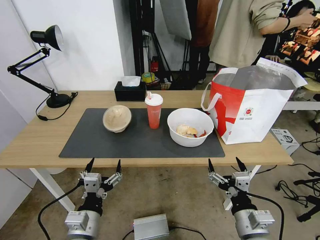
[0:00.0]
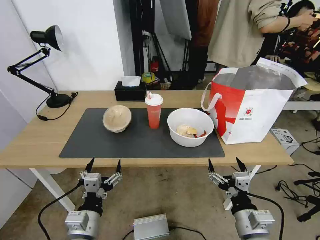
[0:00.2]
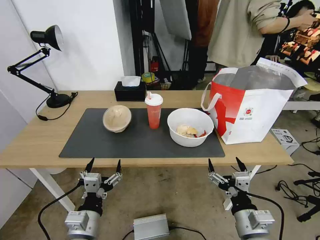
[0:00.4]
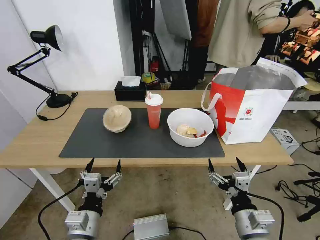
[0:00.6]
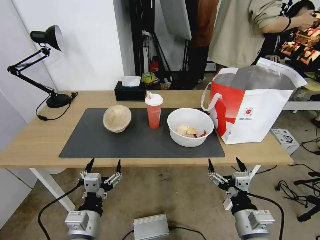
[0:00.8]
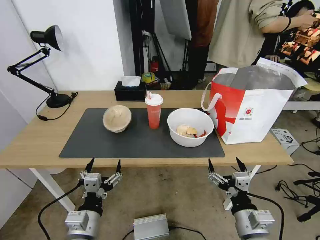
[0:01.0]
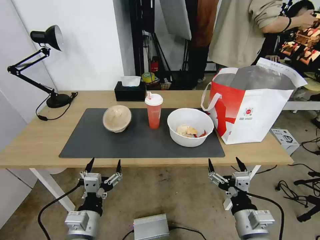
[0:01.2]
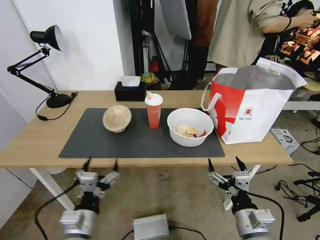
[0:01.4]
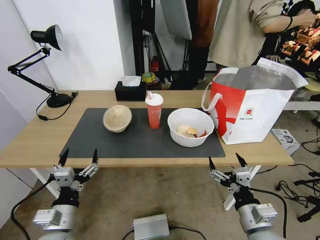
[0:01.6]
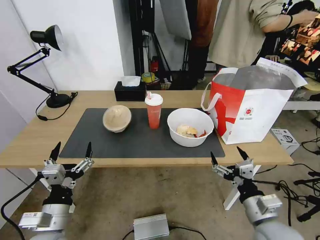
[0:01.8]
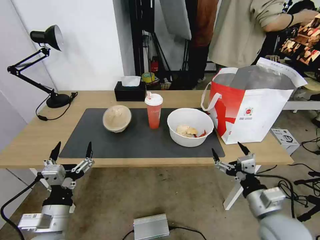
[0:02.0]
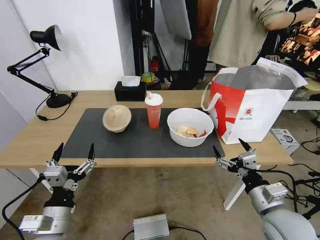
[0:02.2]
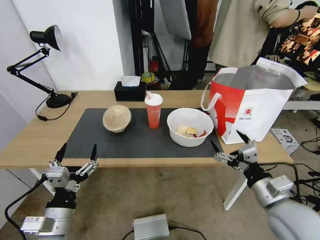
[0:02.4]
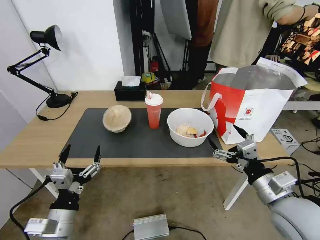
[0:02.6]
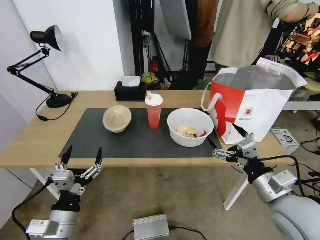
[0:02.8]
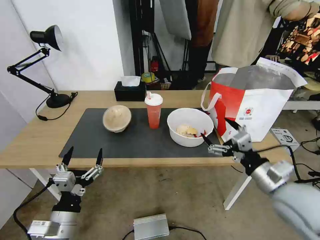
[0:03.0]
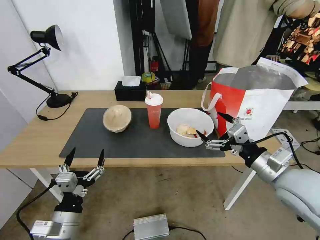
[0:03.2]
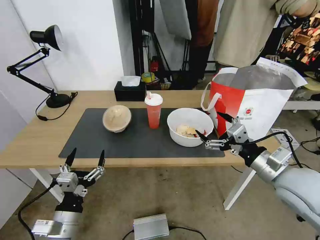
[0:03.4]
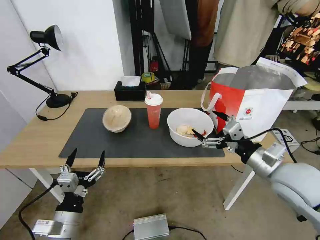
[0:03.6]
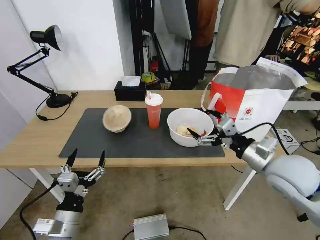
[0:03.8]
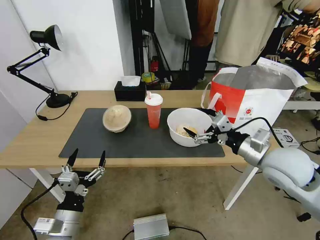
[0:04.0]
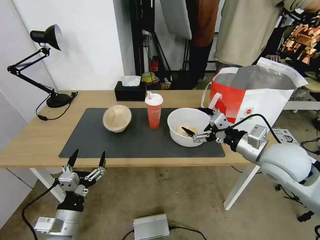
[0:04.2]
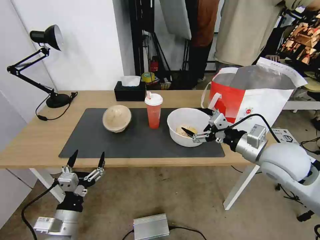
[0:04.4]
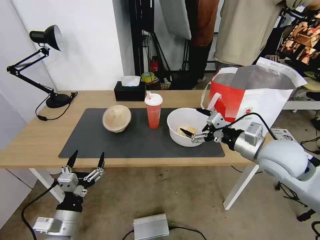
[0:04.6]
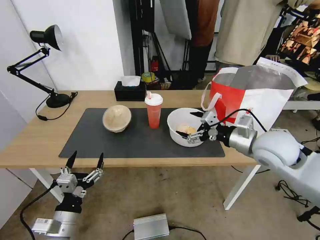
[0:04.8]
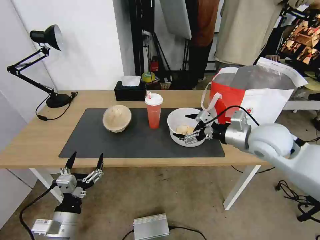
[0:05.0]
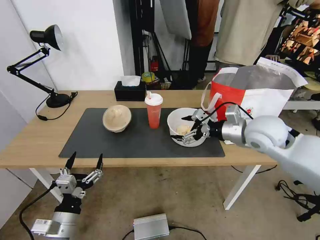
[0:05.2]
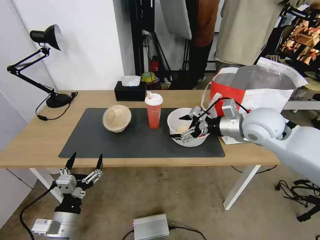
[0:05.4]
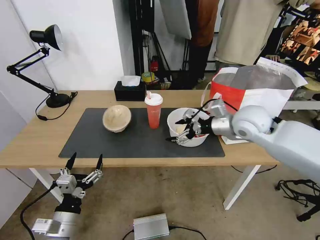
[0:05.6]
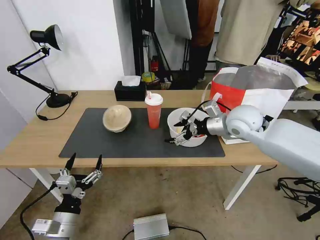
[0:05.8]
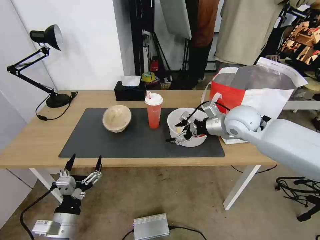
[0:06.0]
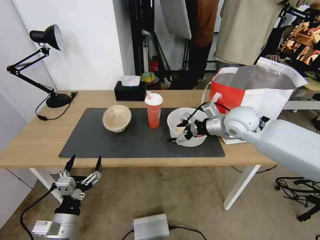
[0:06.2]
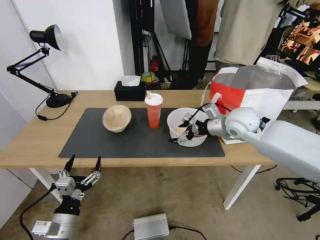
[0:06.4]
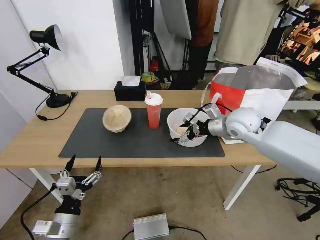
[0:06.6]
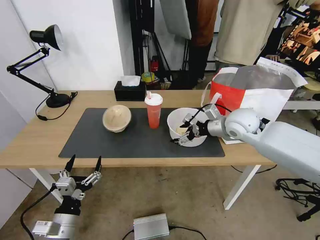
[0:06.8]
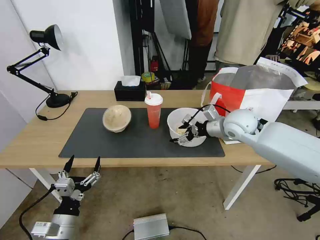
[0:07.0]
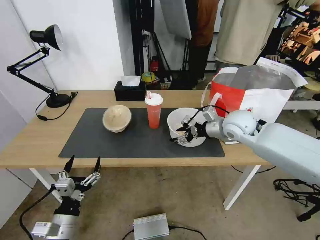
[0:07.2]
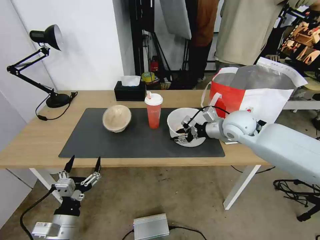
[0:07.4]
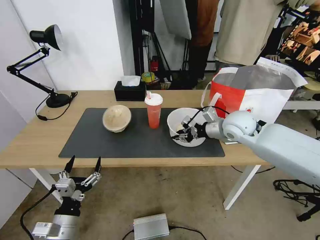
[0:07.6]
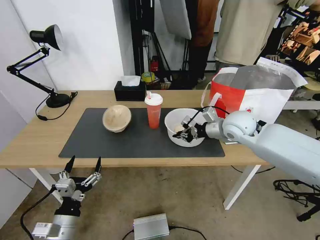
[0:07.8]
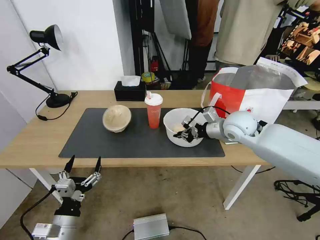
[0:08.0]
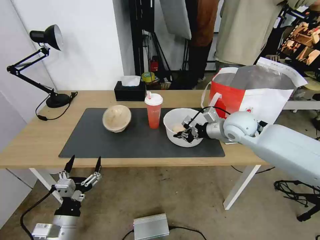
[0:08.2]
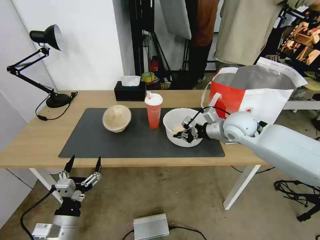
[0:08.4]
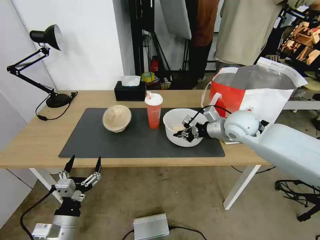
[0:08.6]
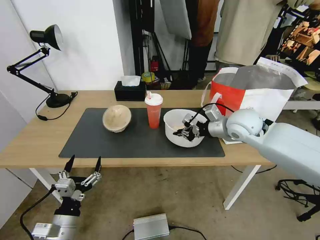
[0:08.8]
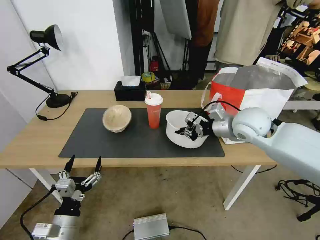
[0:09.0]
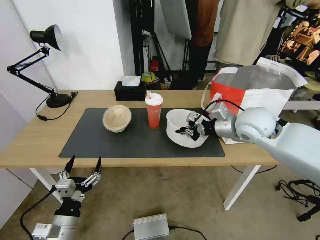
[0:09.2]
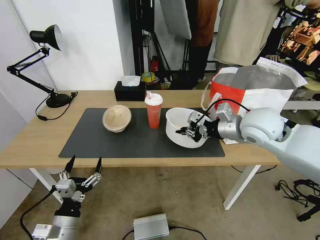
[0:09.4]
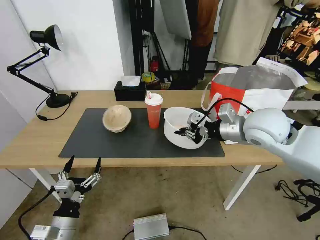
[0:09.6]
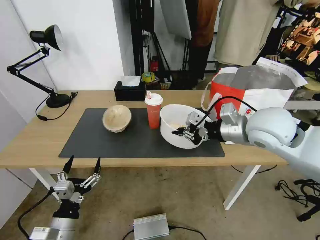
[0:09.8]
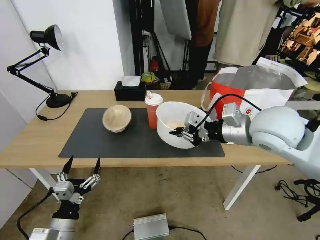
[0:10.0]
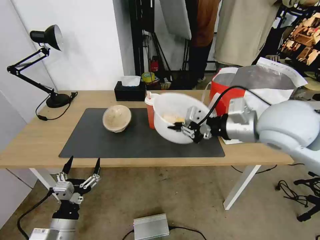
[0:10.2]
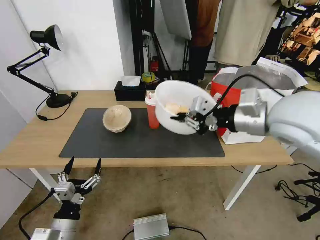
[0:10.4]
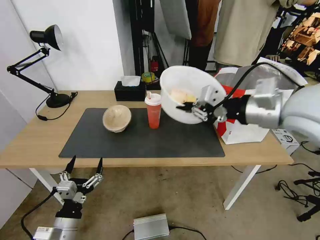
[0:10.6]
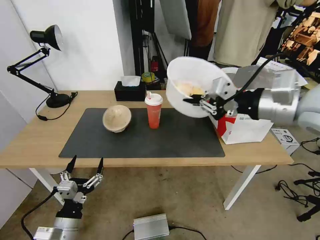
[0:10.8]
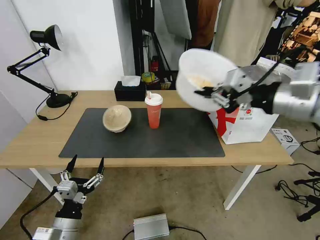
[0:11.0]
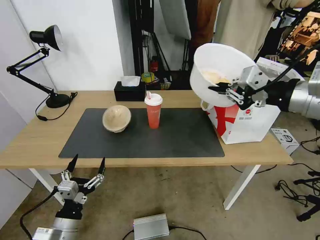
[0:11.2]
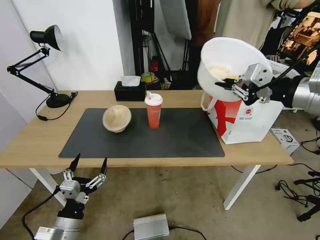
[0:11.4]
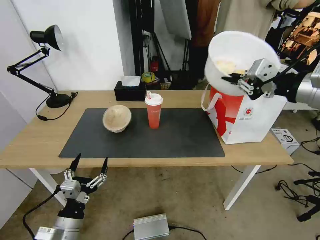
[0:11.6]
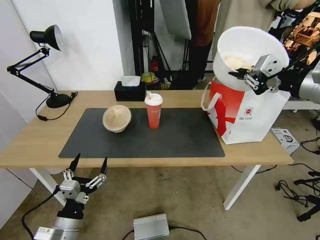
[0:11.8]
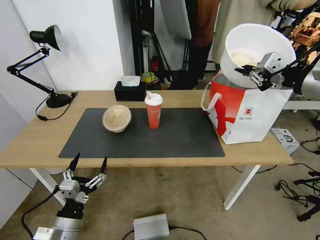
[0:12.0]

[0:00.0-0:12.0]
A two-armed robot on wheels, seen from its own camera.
Task of the whole recording: Pick up the trash from the table and place it into the takeout bag.
0:01.6 to 0:03.0: The right gripper heads upward, forward and to the right, covering approximately 15 cm.
0:03.0 to 0:04.4: The right gripper shifts roughly 10 cm forward.
0:04.4 to 0:06.0: The right gripper heads forward, covering roughly 15 cm.
0:06.0 to 0:07.6: The right gripper closes its fingers.
0:07.6 to 0:09.0: The right gripper moves approximately 5 cm.
0:09.0 to 0:10.4: The right gripper heads upward and backward, covering some 15 cm.
0:10.4 to 0:12.0: The right gripper travels to the right by some 15 cm.

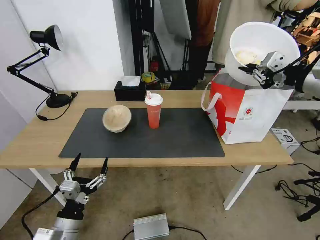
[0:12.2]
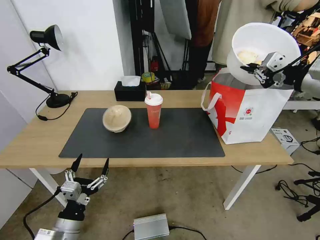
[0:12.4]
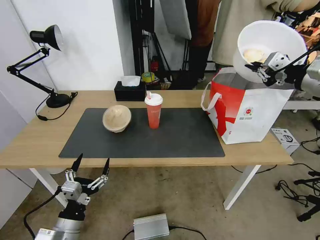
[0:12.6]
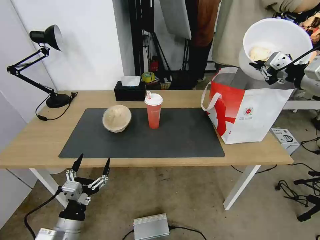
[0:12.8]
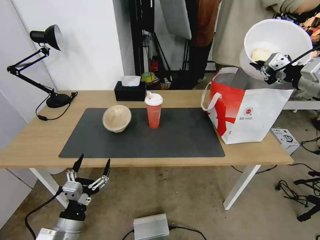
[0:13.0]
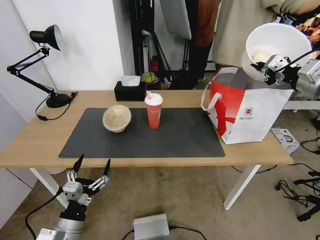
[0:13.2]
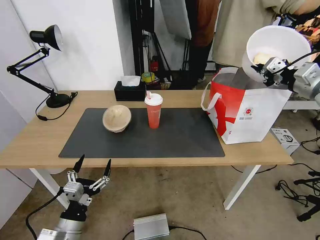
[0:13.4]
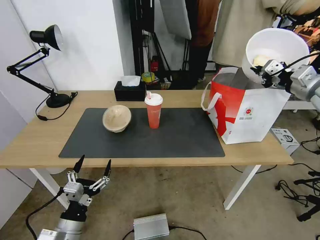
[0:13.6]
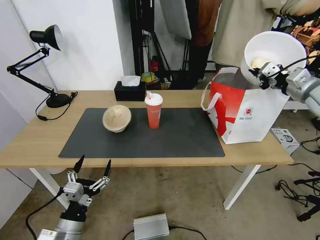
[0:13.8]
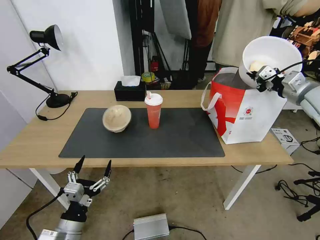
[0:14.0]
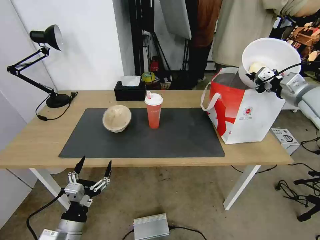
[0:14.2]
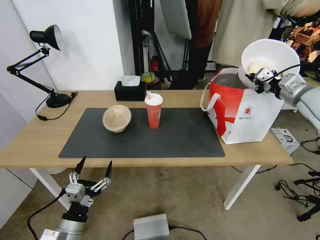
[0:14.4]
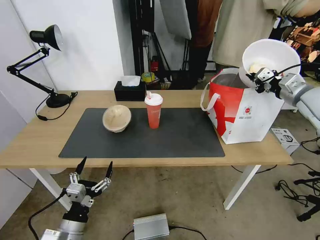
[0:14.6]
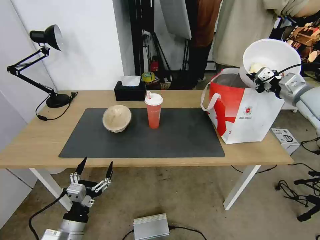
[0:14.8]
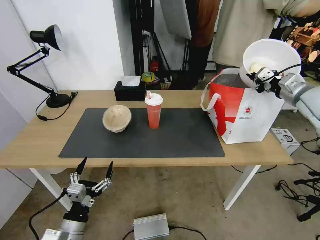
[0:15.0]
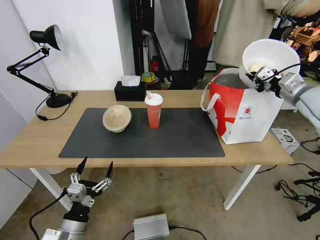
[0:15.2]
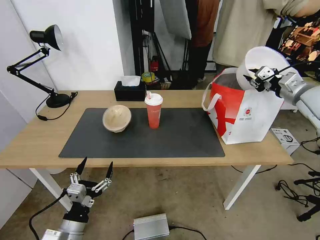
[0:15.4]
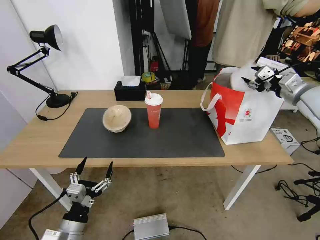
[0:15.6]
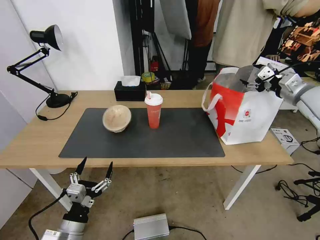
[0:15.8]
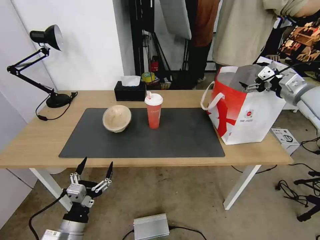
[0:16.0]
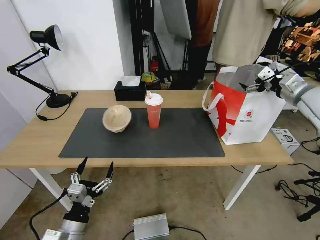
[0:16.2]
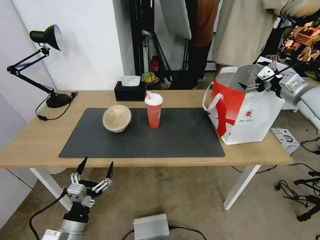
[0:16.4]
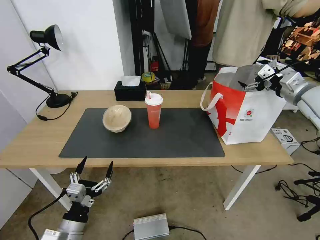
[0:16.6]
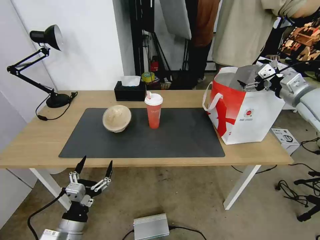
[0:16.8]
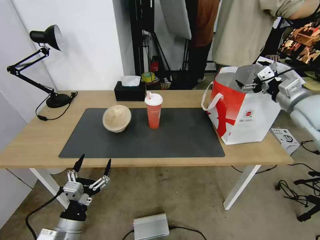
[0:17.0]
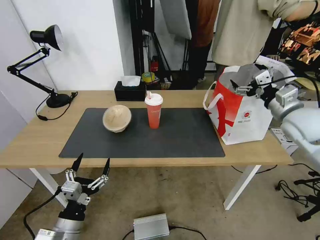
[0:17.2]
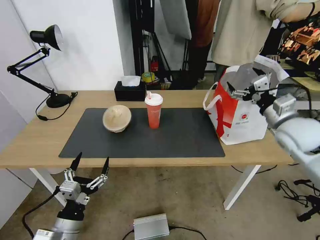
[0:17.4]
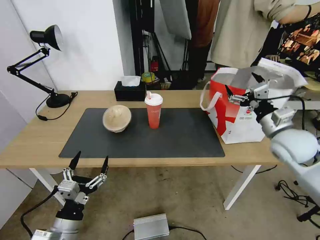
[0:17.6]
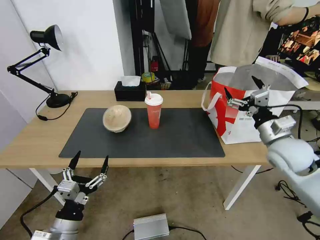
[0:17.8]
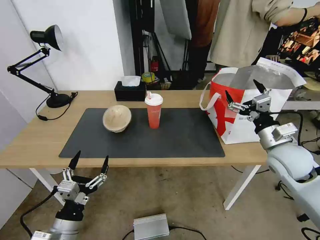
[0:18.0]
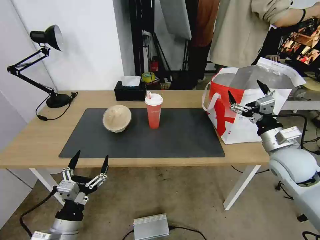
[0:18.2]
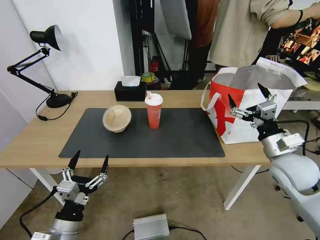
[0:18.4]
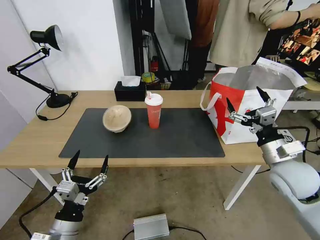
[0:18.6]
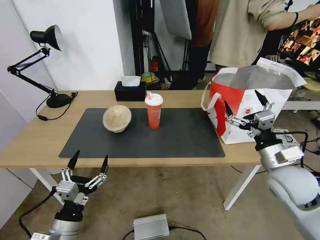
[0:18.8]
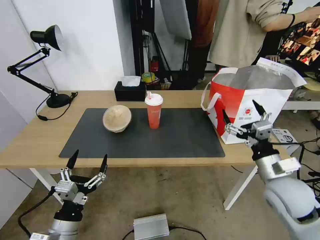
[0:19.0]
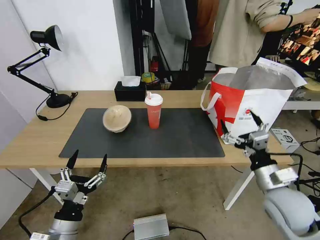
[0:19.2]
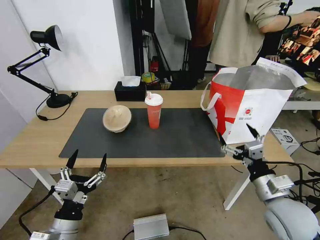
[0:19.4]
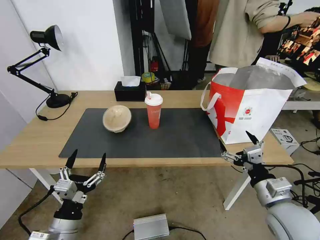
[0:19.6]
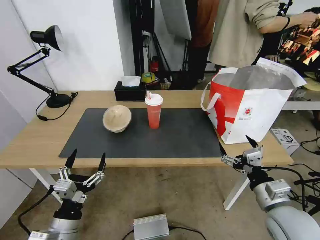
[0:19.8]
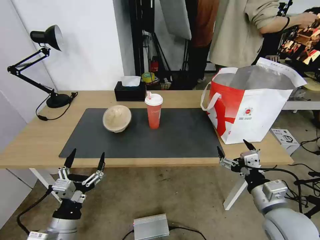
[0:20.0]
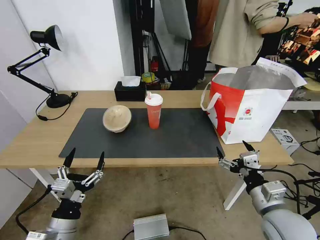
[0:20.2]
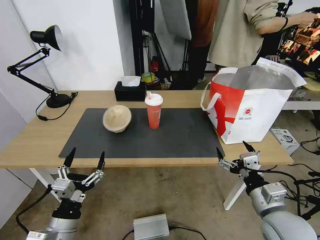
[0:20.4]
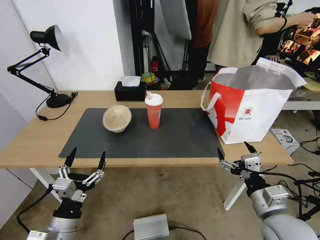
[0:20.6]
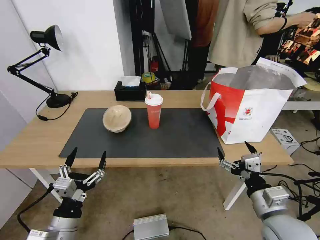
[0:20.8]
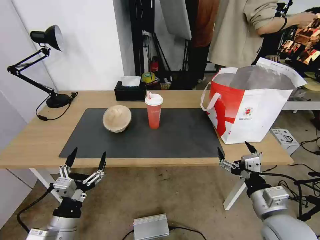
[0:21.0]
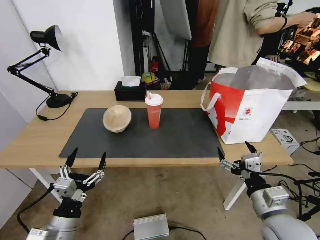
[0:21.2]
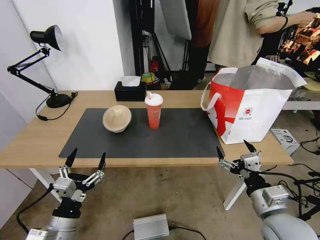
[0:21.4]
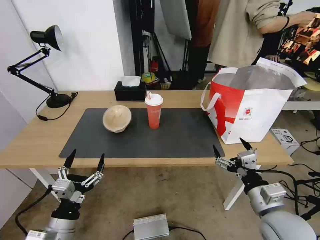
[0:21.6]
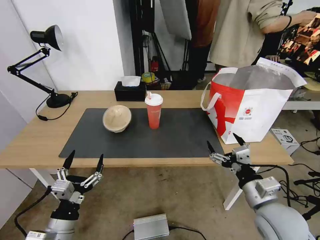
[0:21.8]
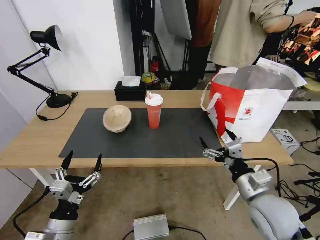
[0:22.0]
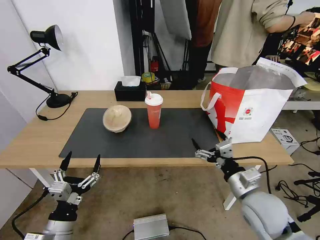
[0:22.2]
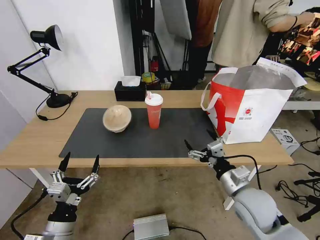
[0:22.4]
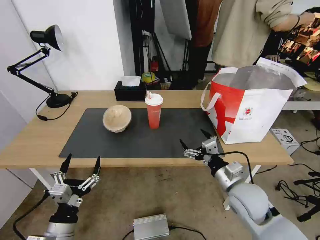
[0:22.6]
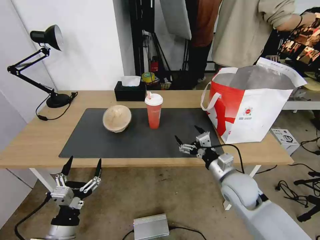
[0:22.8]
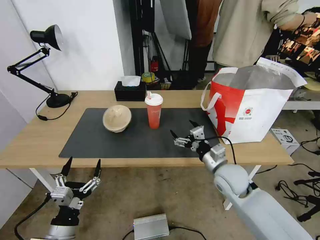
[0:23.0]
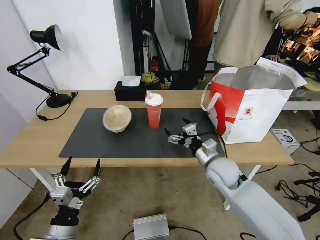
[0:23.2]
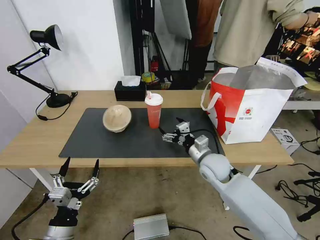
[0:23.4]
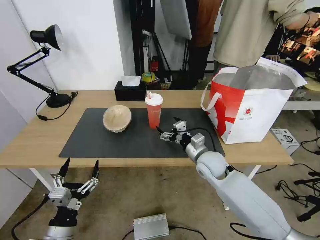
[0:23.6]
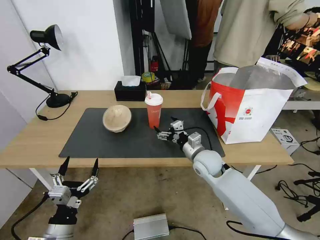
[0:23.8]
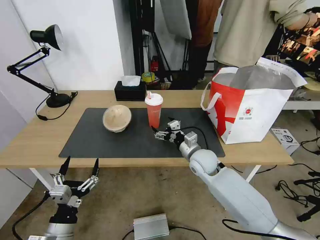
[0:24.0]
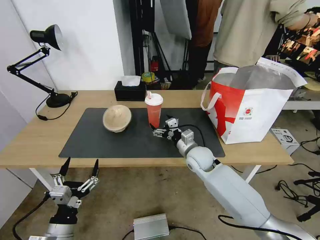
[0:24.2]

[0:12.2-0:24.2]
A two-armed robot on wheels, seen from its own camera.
Task of the whole recording: Pick up the trash from the table and place it into the takeout bag.
0:12.2 to 0:13.8: The right gripper shifts about 15 cm forward, downward and to the right.
0:13.8 to 0:15.2: The grippers make only small movements.
0:15.2 to 0:16.6: The right gripper opens.
0:16.6 to 0:18.2: The right gripper is displaced downward, backward and to the left by about 20 cm.
0:18.2 to 0:19.8: The right gripper shifts about 15 cm backward and downward.
0:19.8 to 0:21.2: The grippers make only small movements.
0:21.2 to 0:22.6: The right gripper is displaced forward by approximately 10 cm.
0:22.6 to 0:24.2: The right gripper travels forward and to the left by roughly 20 cm.
